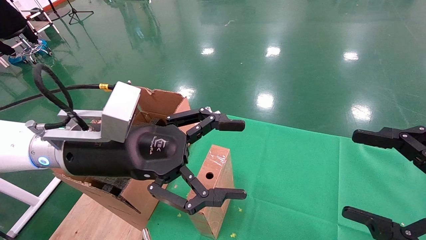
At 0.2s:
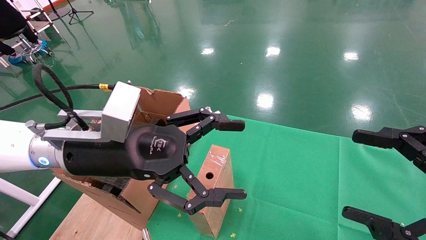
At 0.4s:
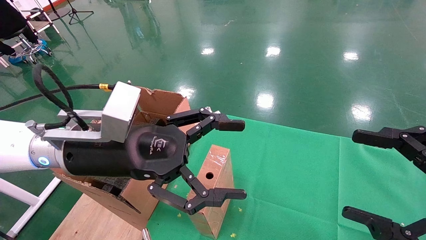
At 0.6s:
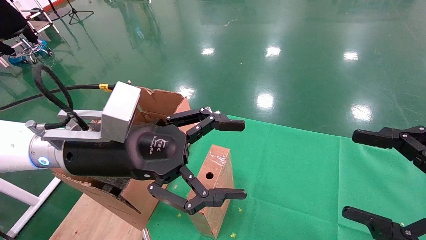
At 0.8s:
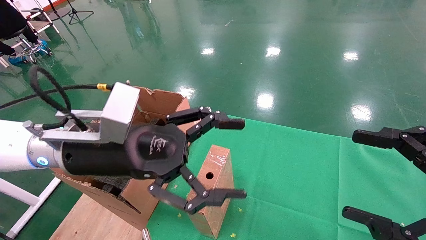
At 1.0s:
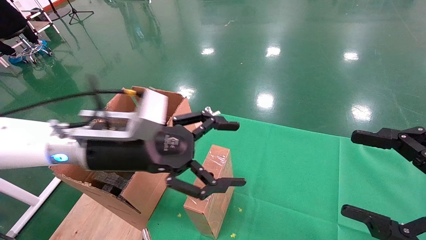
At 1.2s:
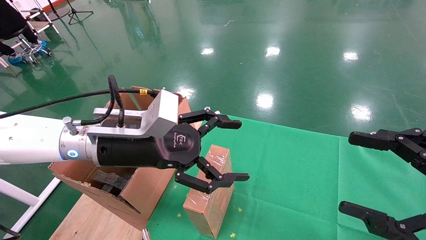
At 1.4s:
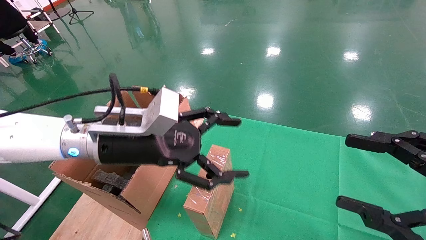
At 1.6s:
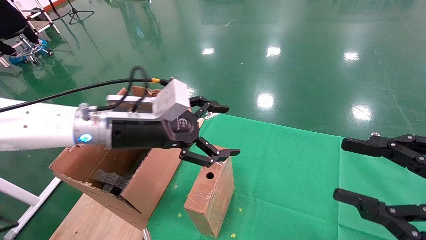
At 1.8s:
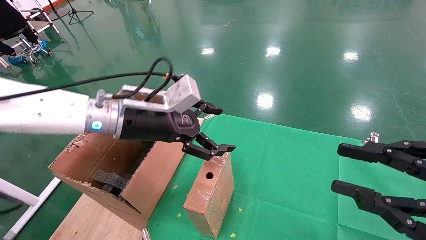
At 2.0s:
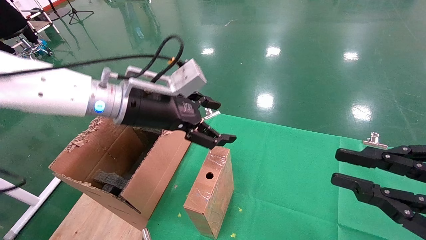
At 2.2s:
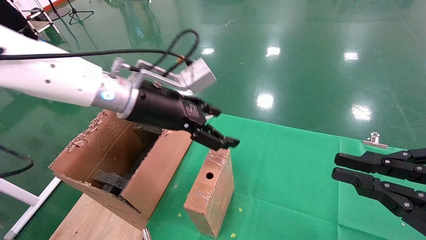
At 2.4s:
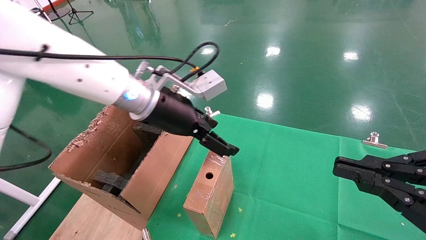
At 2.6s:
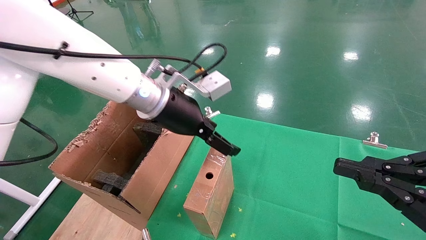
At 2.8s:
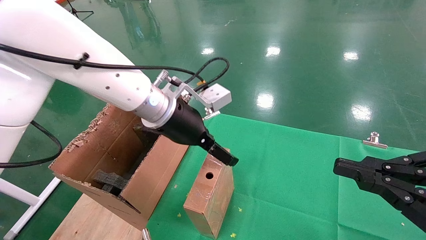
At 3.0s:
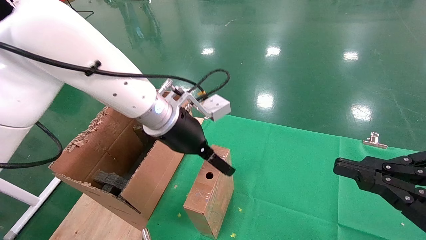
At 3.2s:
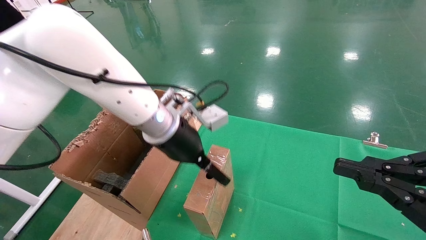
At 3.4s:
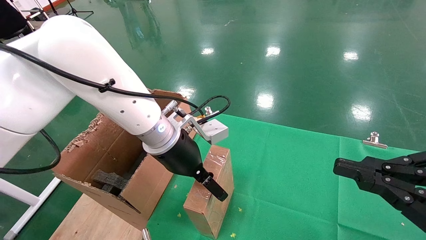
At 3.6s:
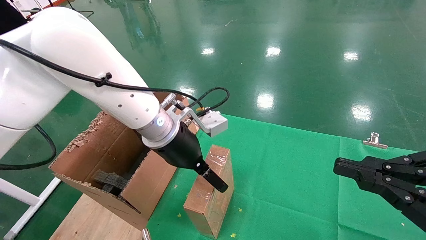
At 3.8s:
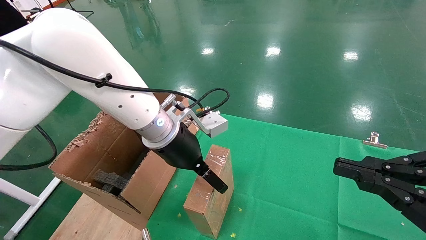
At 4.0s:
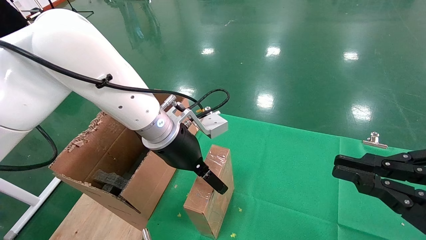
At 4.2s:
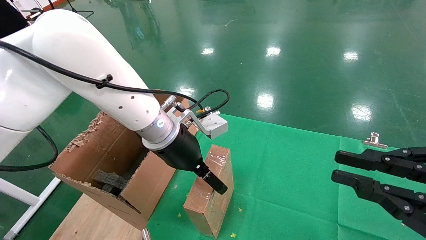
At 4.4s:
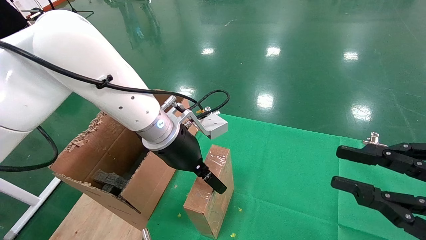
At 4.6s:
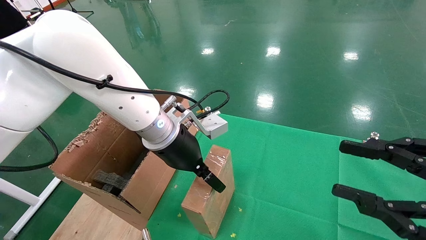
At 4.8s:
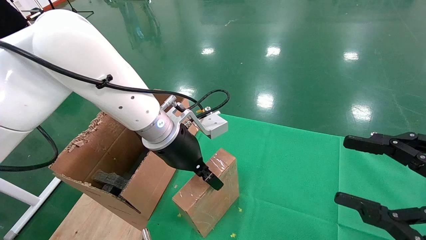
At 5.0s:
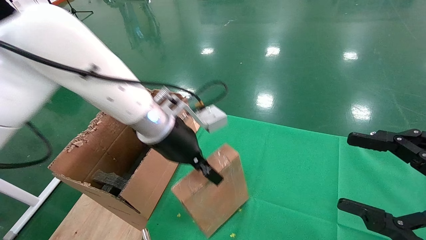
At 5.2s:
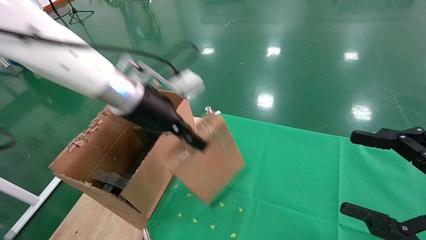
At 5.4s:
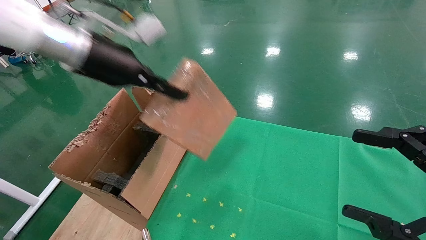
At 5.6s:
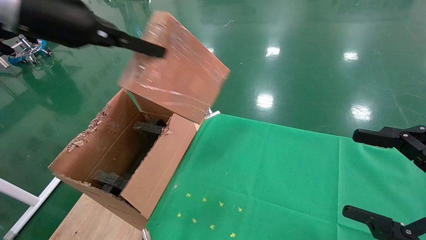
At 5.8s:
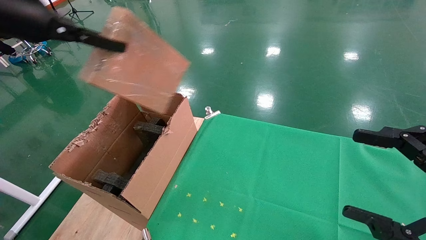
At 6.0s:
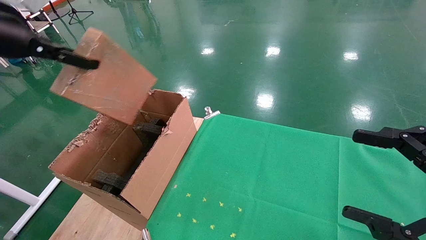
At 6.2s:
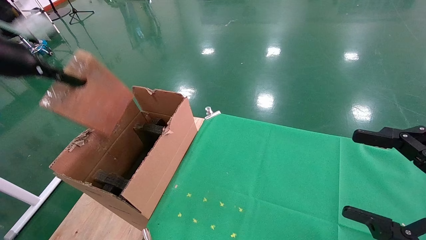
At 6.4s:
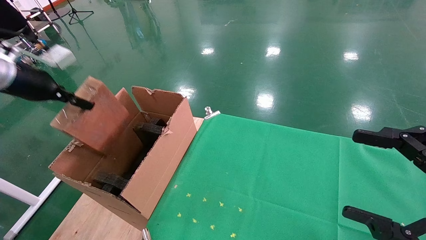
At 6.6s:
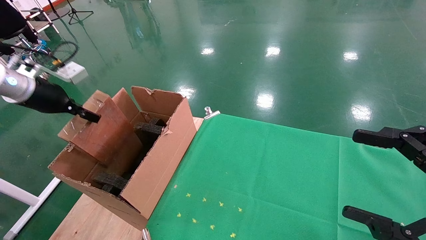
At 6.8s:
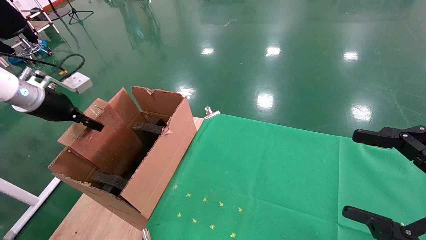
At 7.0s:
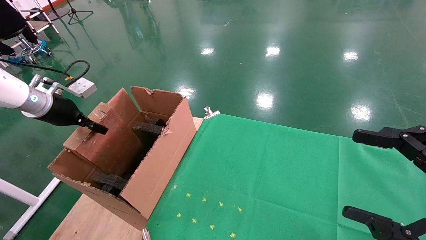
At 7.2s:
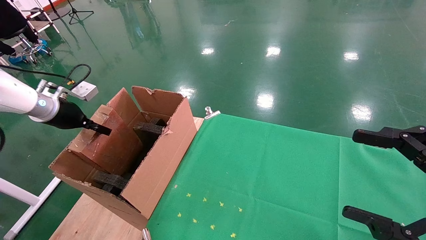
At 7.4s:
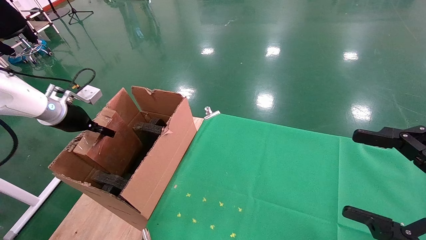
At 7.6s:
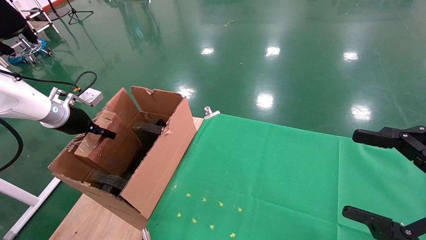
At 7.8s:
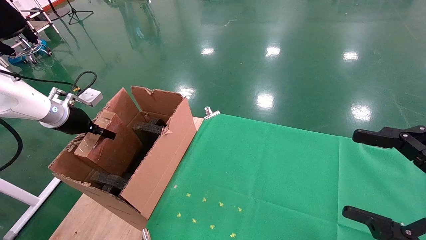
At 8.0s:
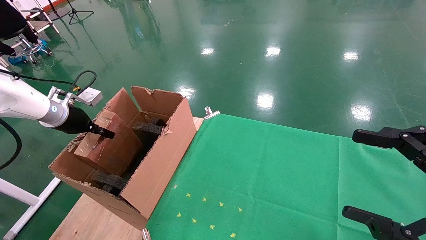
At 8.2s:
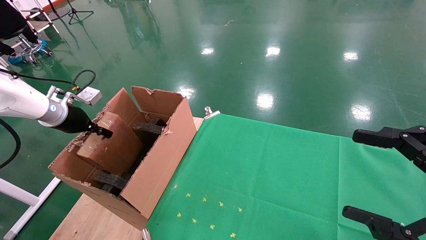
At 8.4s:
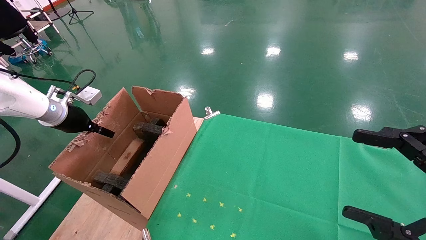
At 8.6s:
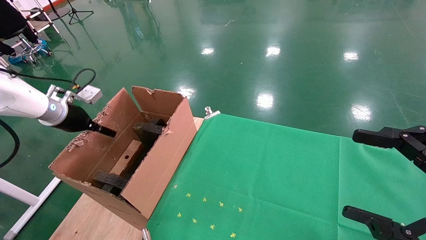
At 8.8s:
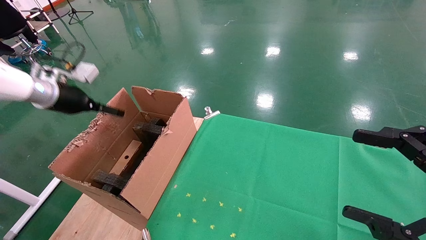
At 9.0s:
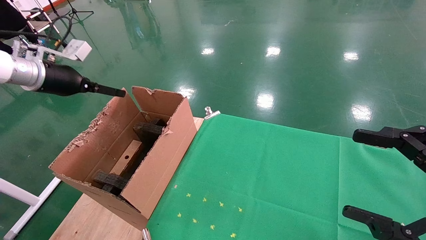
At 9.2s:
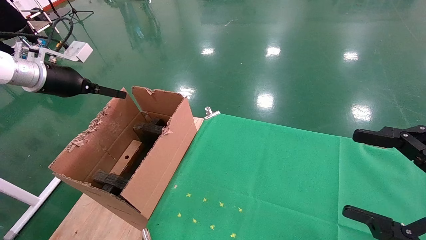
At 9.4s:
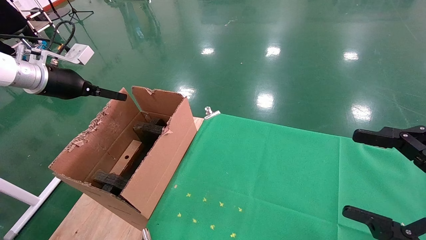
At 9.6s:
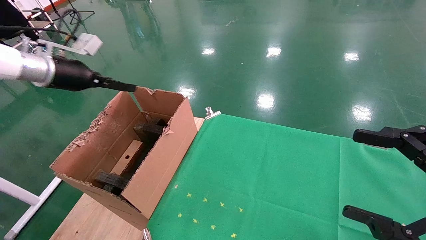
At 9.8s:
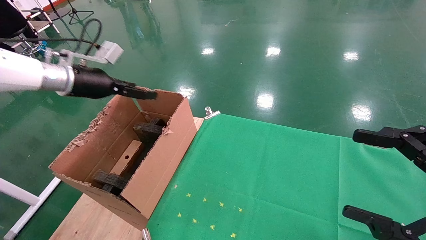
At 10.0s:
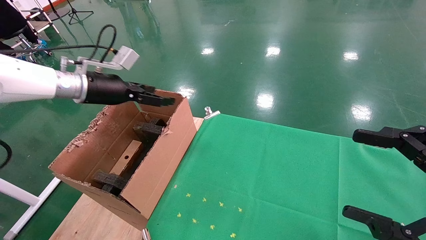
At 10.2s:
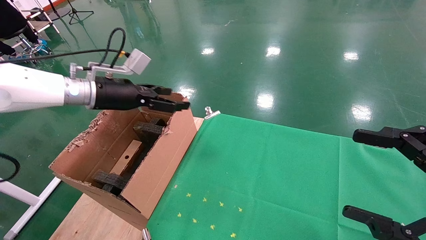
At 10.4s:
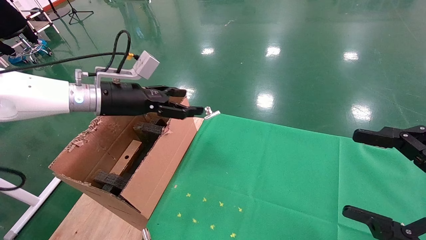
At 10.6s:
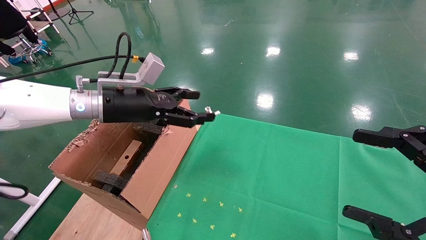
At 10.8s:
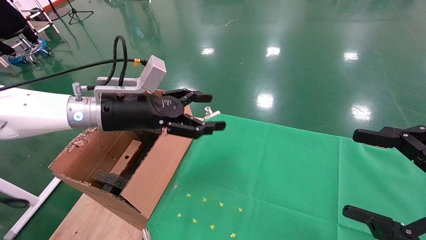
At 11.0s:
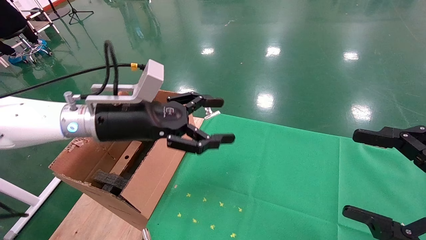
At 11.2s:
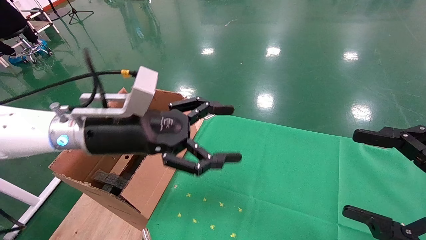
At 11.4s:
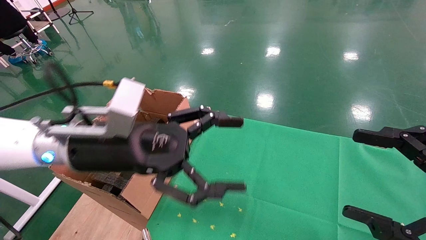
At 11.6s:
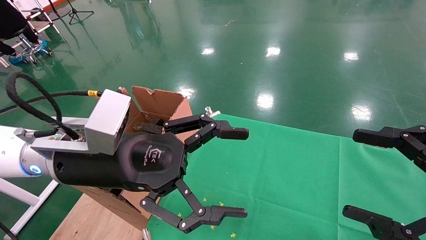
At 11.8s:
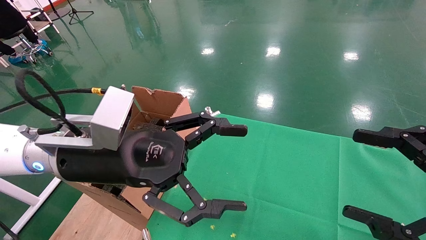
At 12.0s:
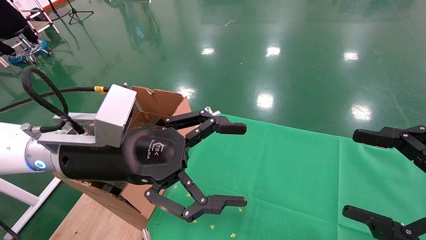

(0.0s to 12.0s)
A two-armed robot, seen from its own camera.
Task of the whole recording: using a robotic arm to pick up a cardboard box and palace it the carton.
Step, 1.0s - 4.8s: Pick up the mouse and the power cord paper box.
Step, 5.0s - 8.4s: Place the mouse and the power cord paper box into the container.
0.0s - 1.6s: The left gripper travels forward by some 5 cm.
1.6s - 3.0s: The right gripper closes. Meanwhile the left gripper travels to the right by roughly 10 cm.
3.0s - 4.4s: The grippers stay close to where they were, moving slightly.
4.4s - 6.0s: The left gripper shifts approximately 35 cm to the left and upward, and closes, while the right gripper opens.
6.0s - 7.6s: The left gripper travels downward and forward by some 20 cm.
7.6s - 9.0s: The left gripper heads upward, covering about 10 cm, and opens up.
9.0s - 10.4s: The left gripper travels to the right by roughly 15 cm.
10.4s - 12.0s: The left gripper moves backward and to the right, some 20 cm.

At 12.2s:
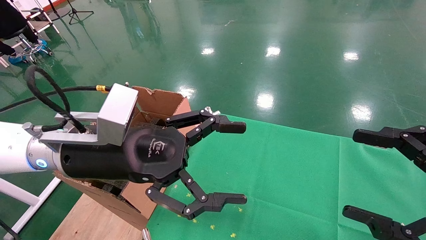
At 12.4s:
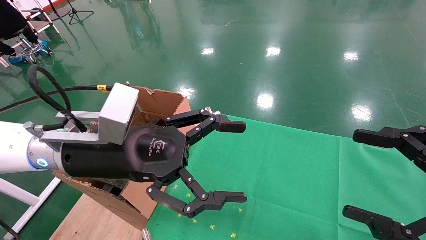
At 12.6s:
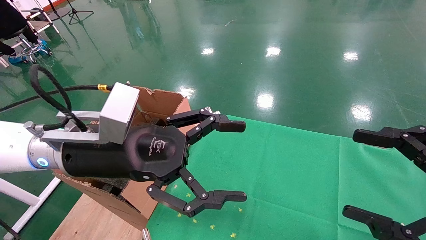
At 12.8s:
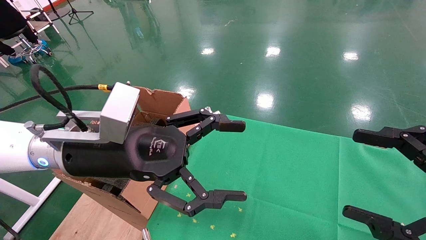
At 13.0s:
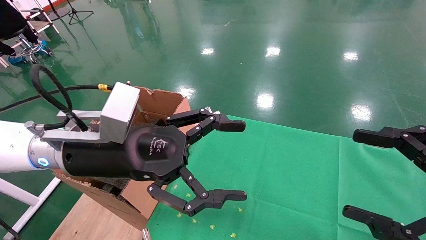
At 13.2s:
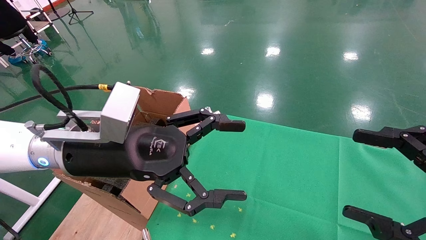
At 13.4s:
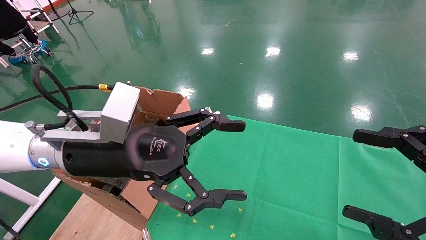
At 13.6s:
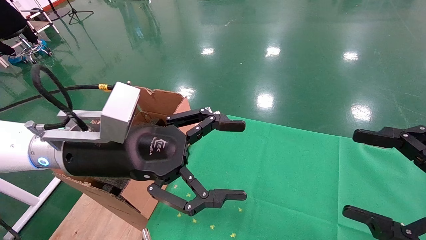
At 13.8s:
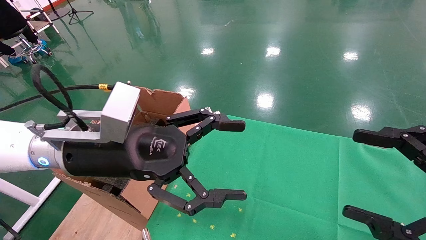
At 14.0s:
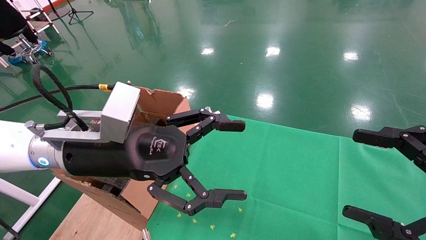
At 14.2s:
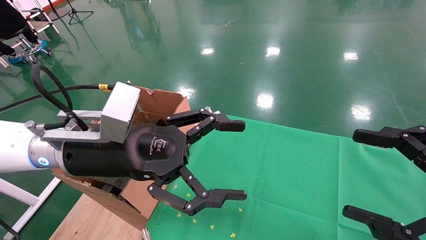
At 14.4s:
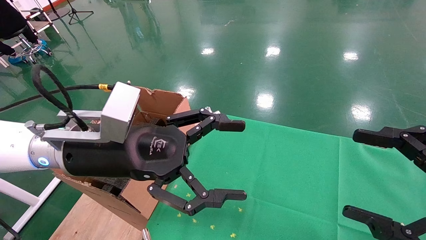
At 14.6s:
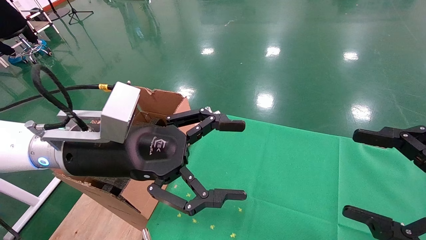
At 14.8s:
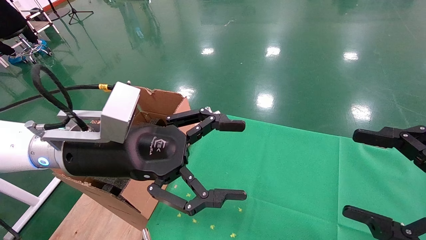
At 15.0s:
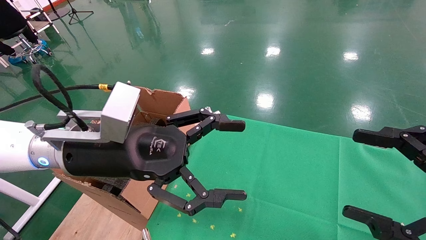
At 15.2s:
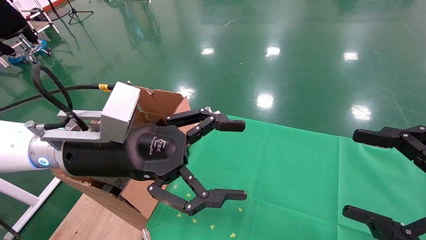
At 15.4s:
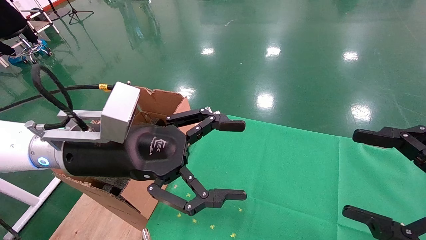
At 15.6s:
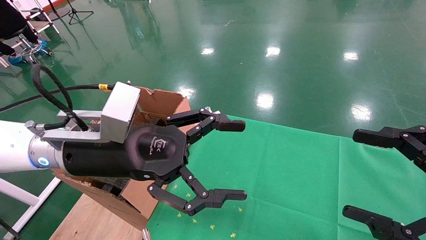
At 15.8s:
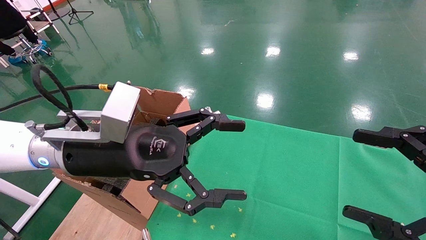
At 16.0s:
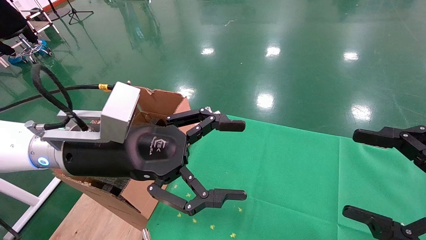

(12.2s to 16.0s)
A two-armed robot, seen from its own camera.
Task of the whole recording: using a robotic arm to pick up a cardboard box and palace it the carton.
12.2s - 16.0s: Neither gripper changes place.

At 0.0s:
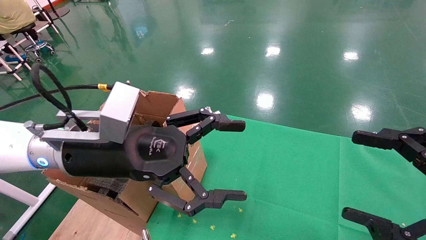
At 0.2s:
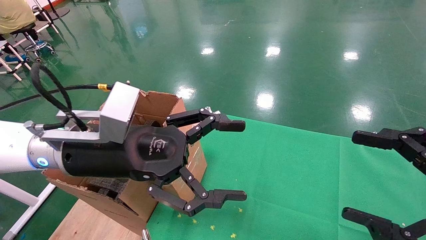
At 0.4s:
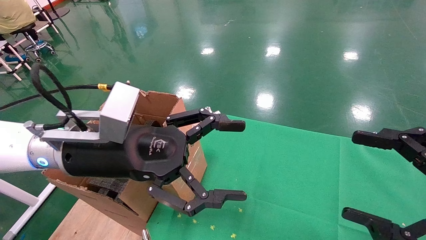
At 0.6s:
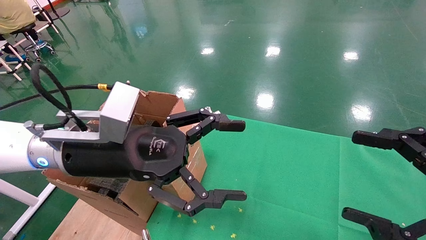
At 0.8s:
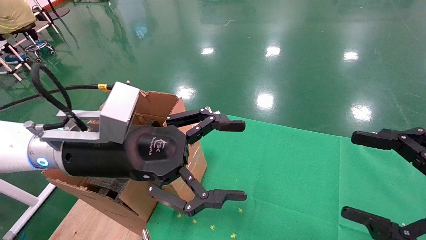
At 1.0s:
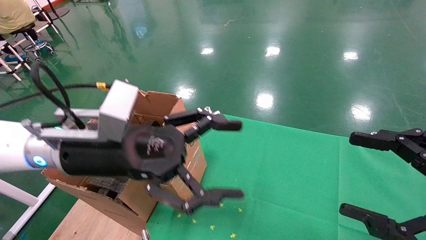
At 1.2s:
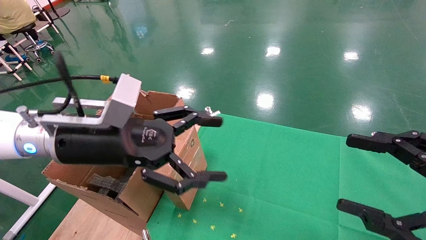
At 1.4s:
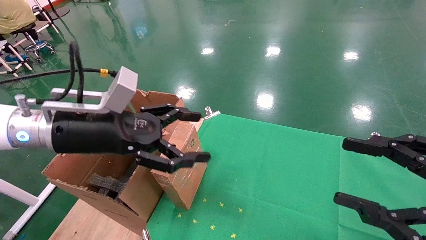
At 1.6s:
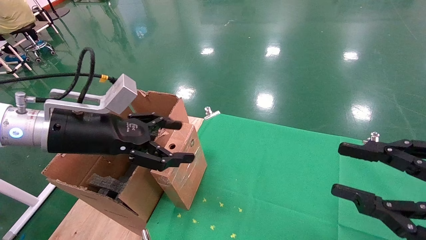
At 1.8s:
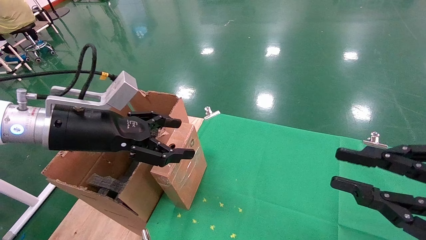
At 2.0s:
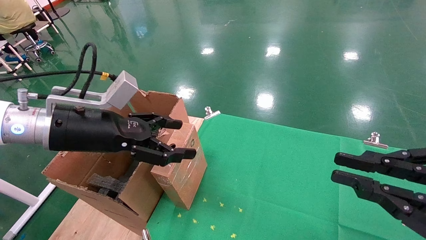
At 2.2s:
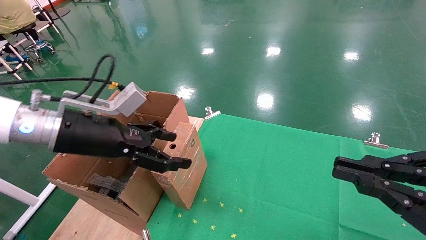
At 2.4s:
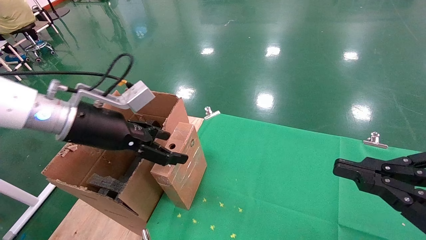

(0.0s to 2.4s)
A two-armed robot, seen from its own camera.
Task of the whole recording: using a robotic arm to pick up a cardboard box and palace it the carton.
0.0s - 1.2s: The grippers stay close to where they were, moving slightly.
1.2s - 2.4s: The right gripper closes up, while the left gripper changes place by roughly 5 cm.
